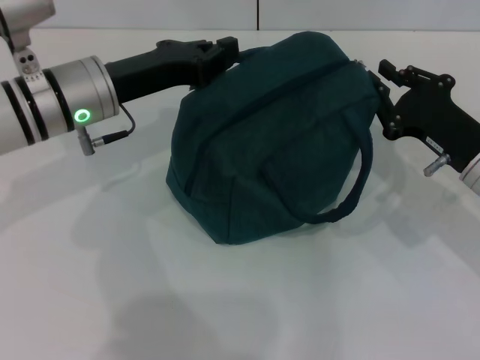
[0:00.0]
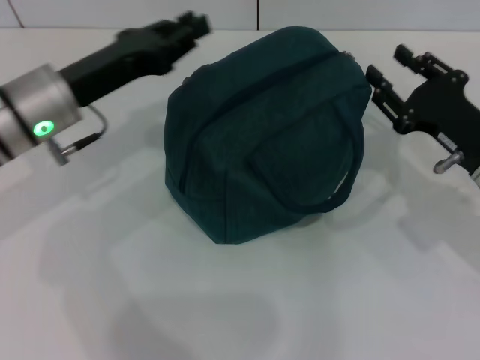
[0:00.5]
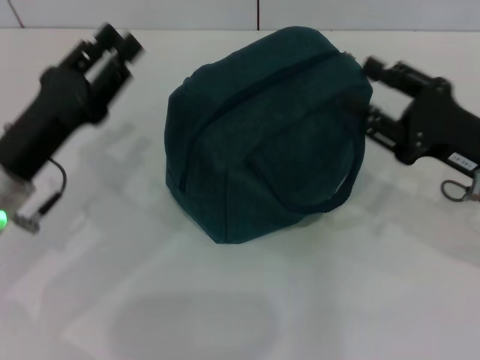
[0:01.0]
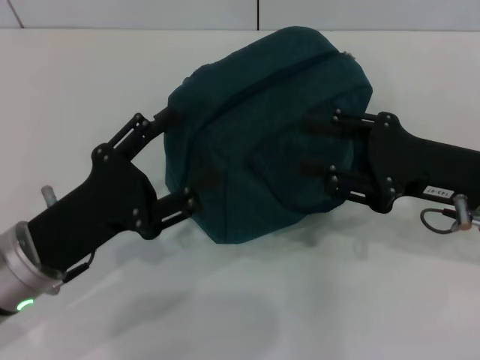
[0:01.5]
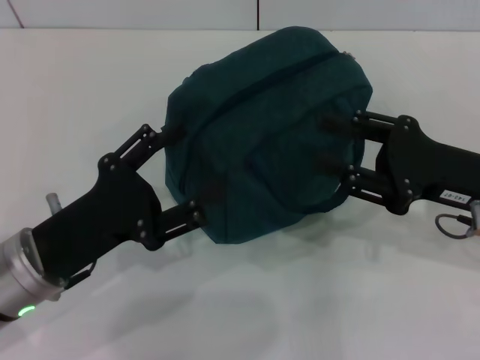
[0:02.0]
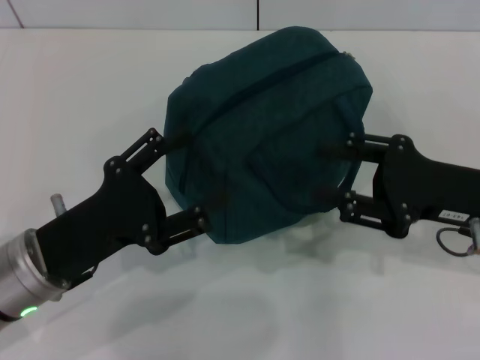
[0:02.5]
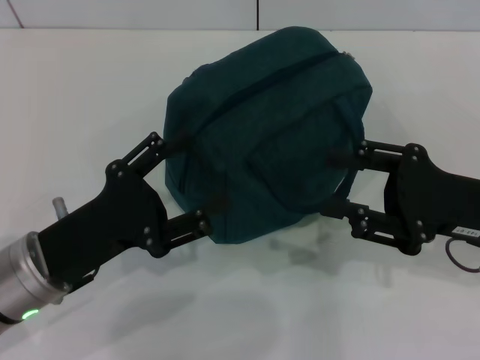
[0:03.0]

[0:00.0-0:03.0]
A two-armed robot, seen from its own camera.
0:00.0 to 0:01.5: The right gripper shifts by some 5 cm, and opens up; the left gripper shifts some 15 cm backward, and opens.
0:01.5 to 0:03.0: There are only small adjustments of the grippers.

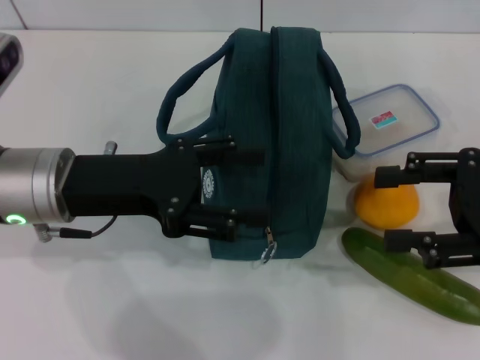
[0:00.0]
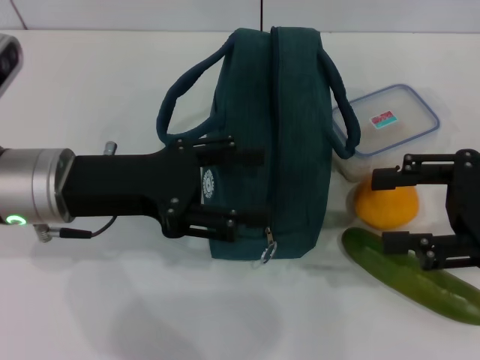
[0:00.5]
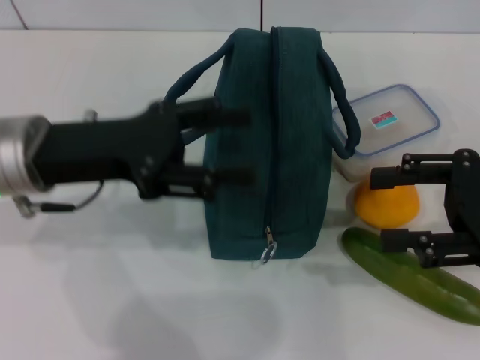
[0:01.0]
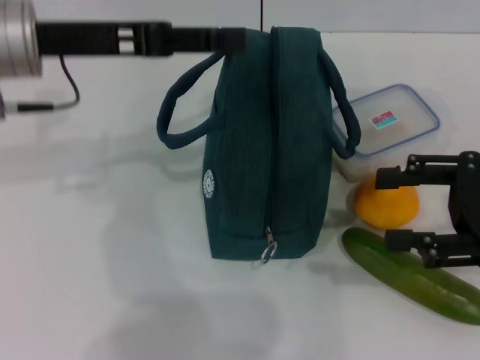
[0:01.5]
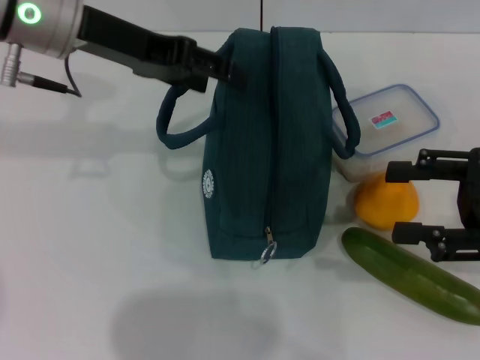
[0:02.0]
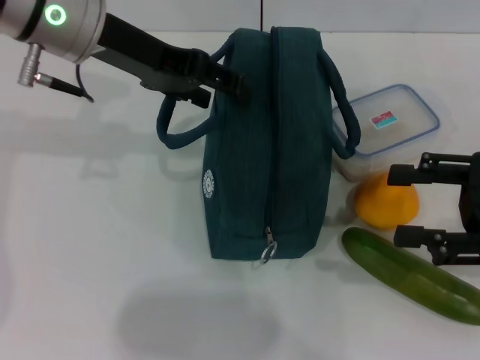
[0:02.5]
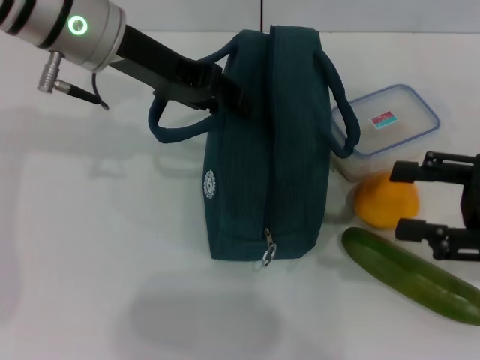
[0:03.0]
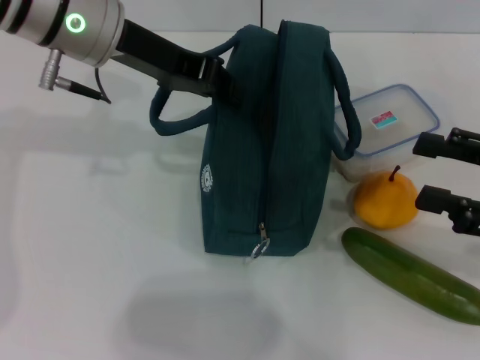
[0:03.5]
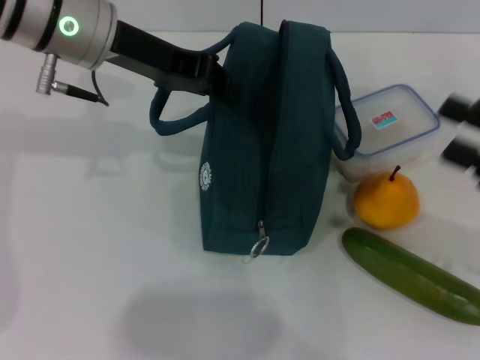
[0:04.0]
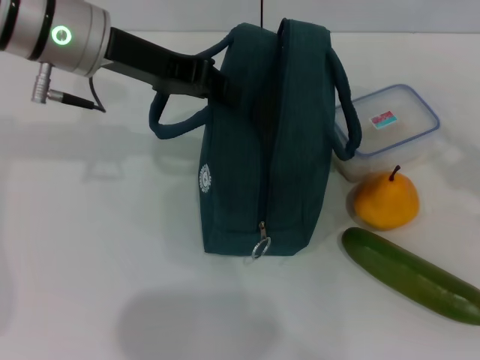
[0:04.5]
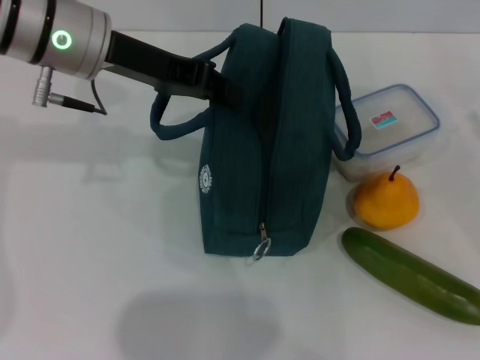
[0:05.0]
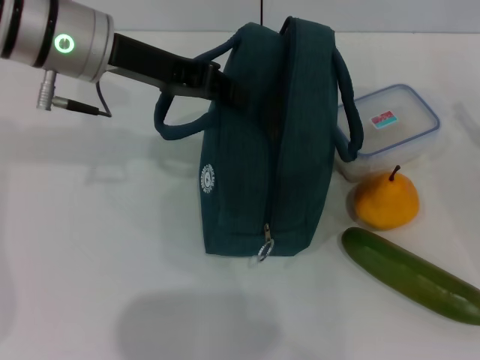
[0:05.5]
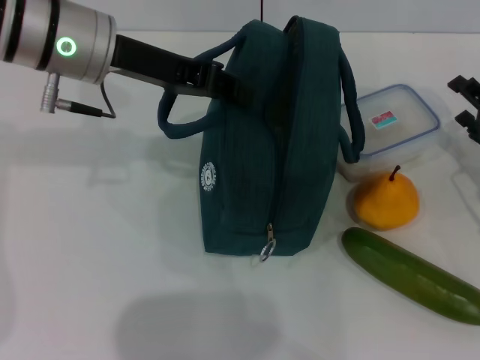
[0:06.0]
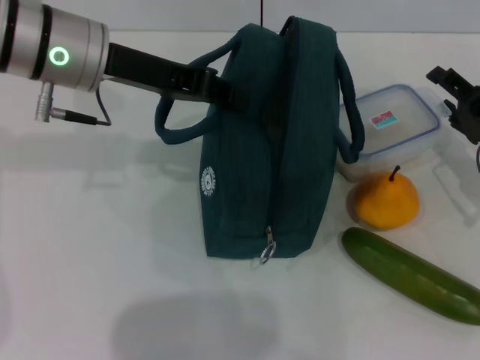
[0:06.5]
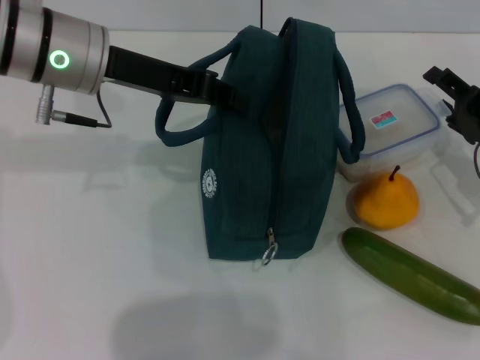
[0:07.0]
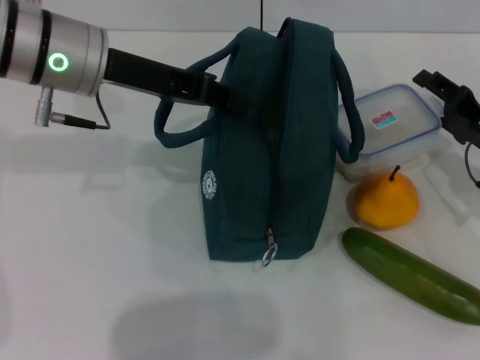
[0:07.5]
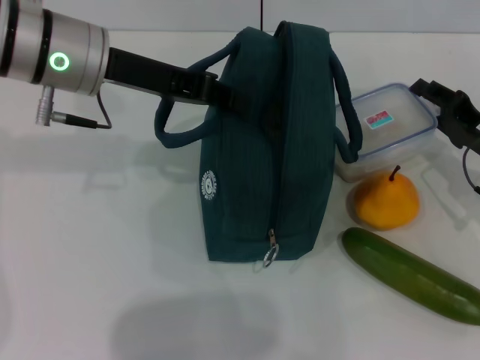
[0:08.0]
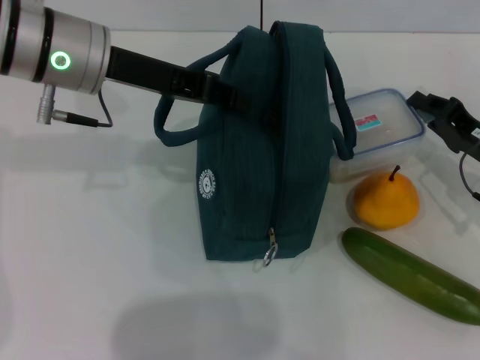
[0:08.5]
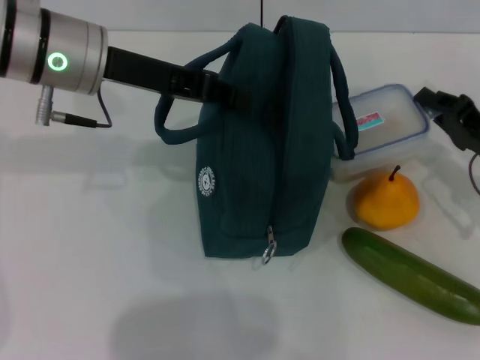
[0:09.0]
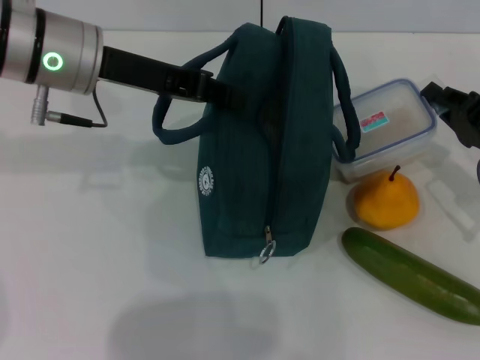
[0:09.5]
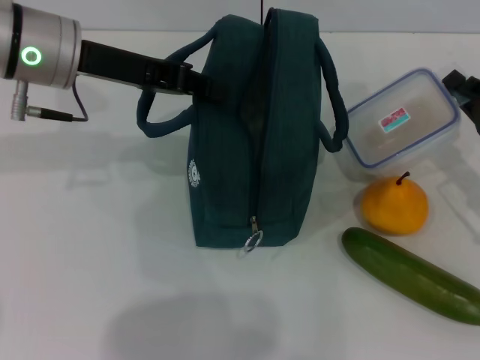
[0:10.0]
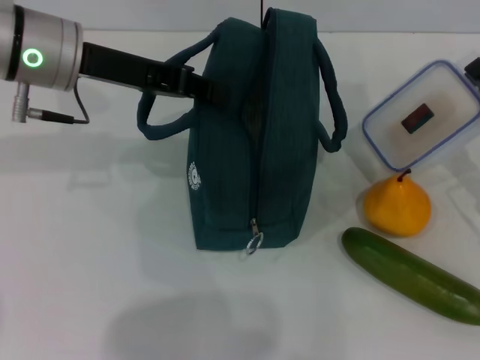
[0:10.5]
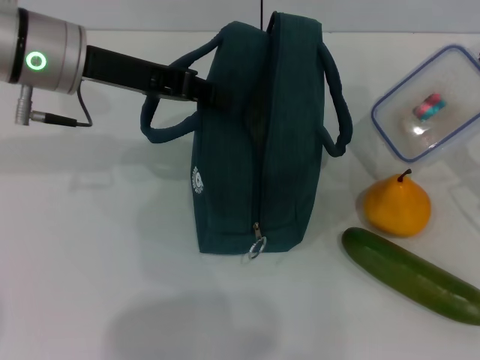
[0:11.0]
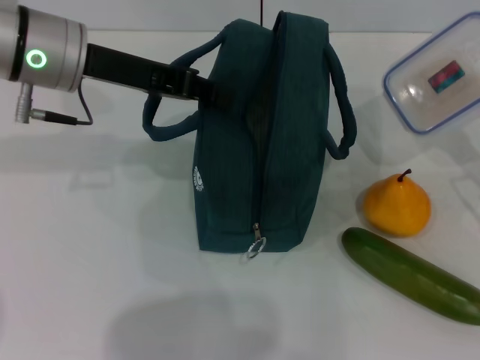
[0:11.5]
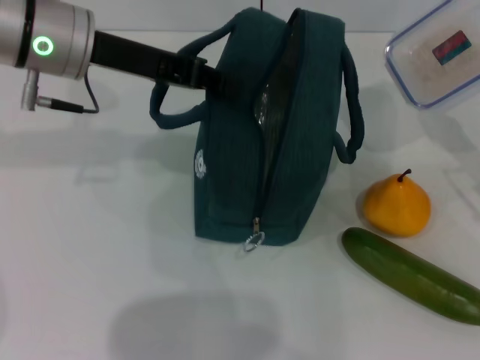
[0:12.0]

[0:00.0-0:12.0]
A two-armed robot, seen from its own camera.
Step, 0:00.0 to 0:03.5: Hold the lunch bag with your left hand.
Step, 0:04.0 to 0:09.0: Pick up the lunch box with your right hand.
0:00.0 to 0:02.0: The left gripper moves upward and forward, some 15 cm.
0:02.0 to 0:04.0: The left gripper closes.
0:04.0 to 0:06.0: The right gripper moves downward and forward, roughly 10 cm.
0:06.0 to 0:08.0: The right gripper closes up.
0:08.0 to 0:10.0: The right gripper closes.

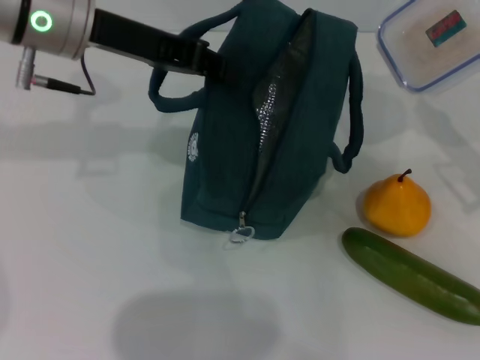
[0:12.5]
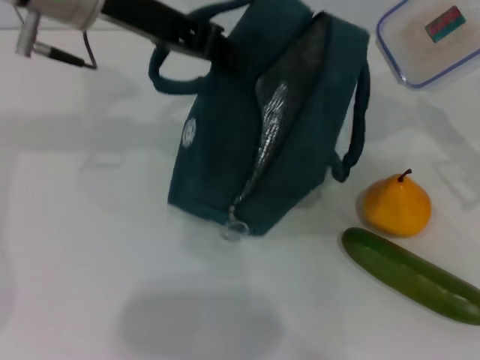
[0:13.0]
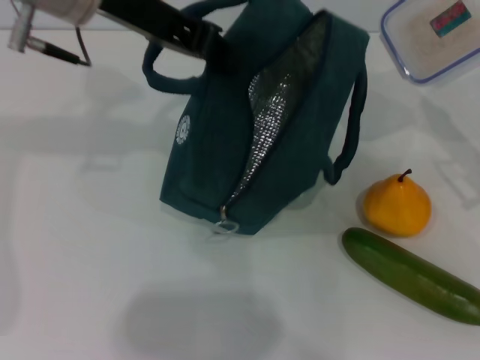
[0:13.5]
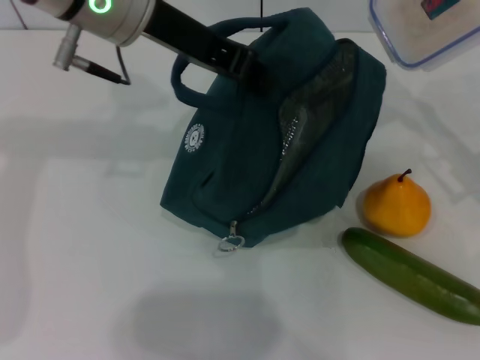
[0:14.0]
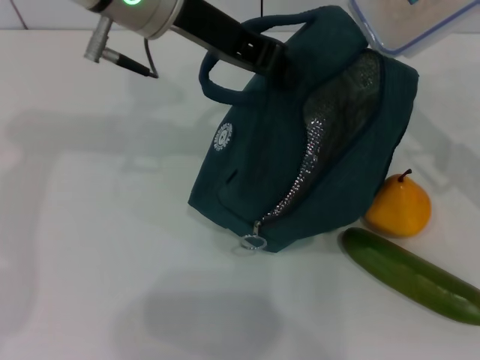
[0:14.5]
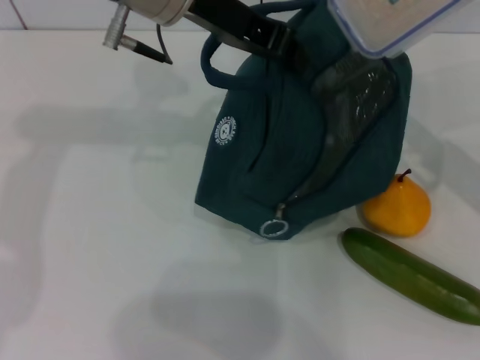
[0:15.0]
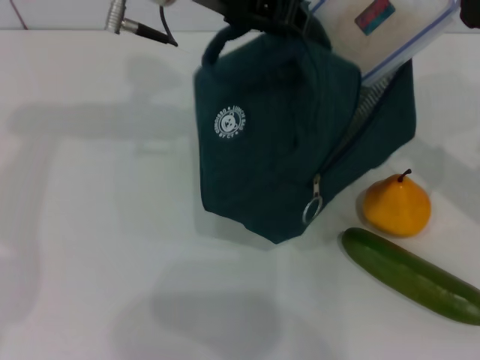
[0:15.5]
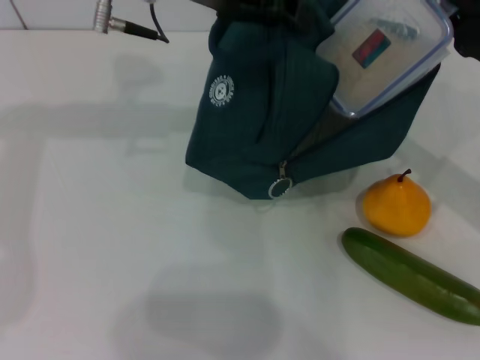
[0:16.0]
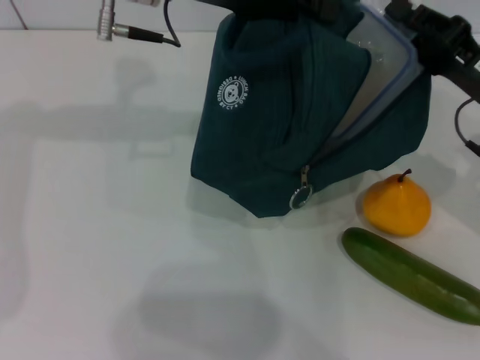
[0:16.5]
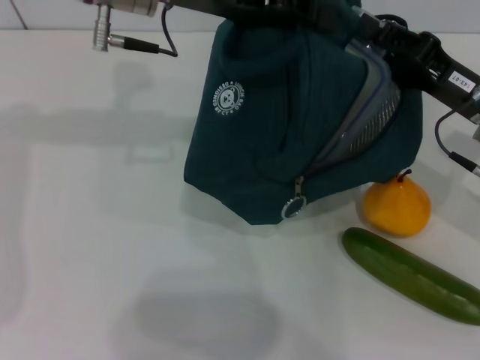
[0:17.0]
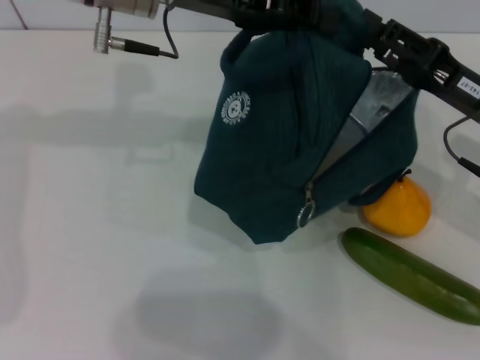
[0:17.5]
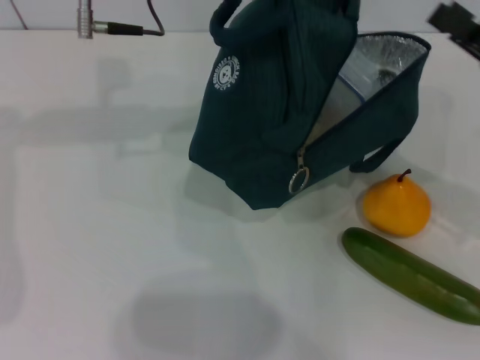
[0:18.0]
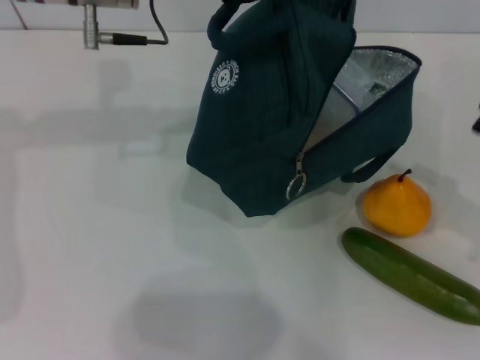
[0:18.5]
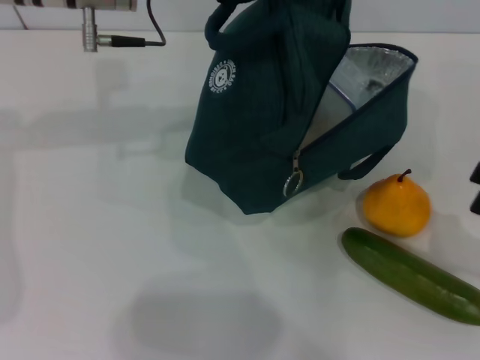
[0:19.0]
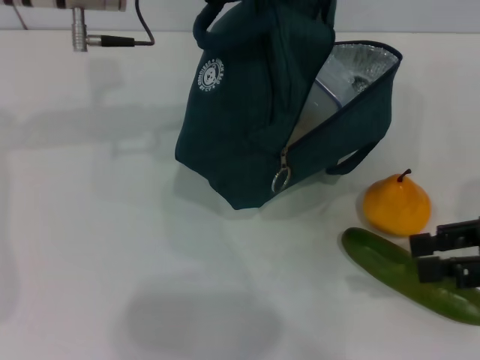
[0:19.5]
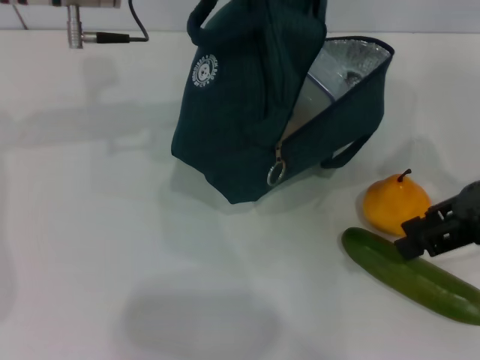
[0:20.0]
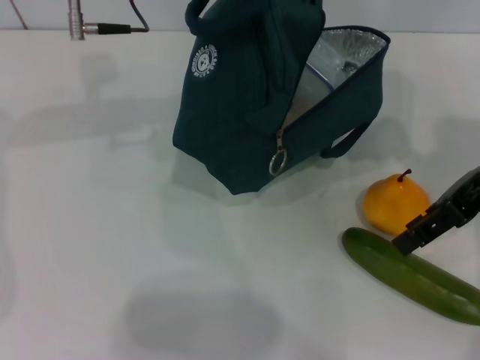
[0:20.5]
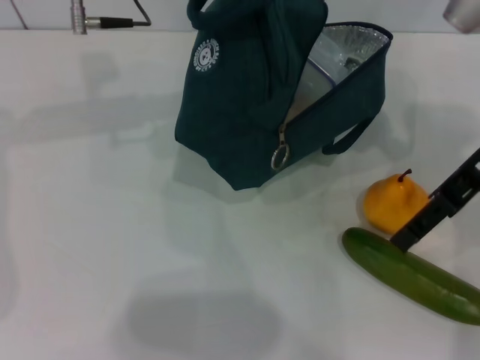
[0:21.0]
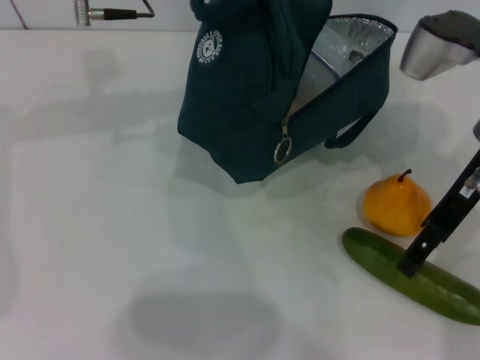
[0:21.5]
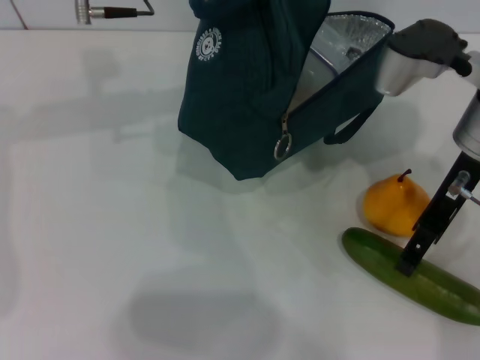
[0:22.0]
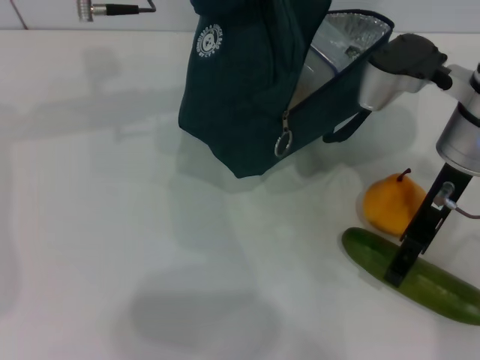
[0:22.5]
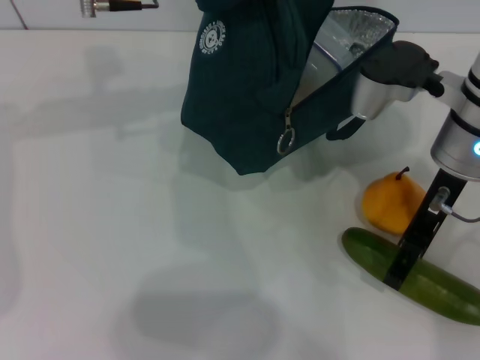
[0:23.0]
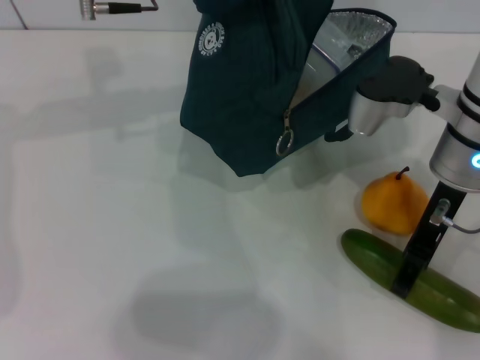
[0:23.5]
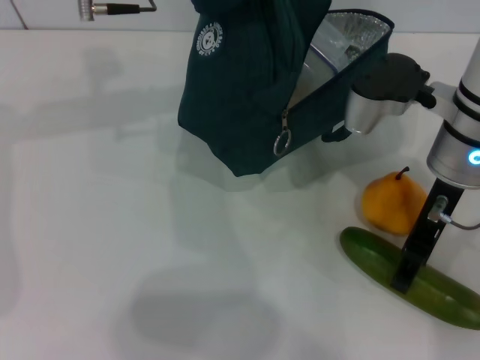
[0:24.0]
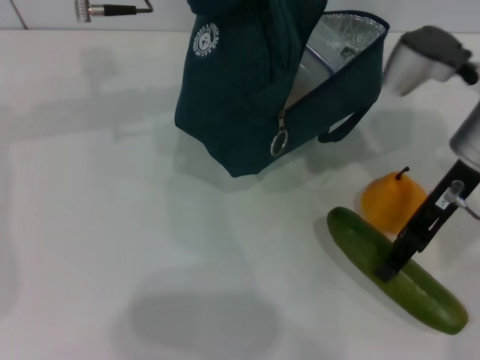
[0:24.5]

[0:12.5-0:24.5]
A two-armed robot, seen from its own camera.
Step, 0:12.5 to 0:17.5: Place the lunch box into the lunch bag with your right hand.
Step, 0:18.0 to 0:23.0: Pick up the cucumber with your right hand.
0:12.5 to 0:14.5: The left gripper travels to the right by roughly 5 cm.
0:16.5 to 0:18.5: The right gripper travels to the right and backward by about 15 cm, and opens.
0:18.5 to 0:20.5: The right gripper heads to the left, upward and forward, covering roughly 20 cm.
0:20.5 to 0:22.5: The right gripper shifts some 5 cm to the left, and opens its fingers.
0:22.5 to 0:24.5: The grippers make only small movements.
